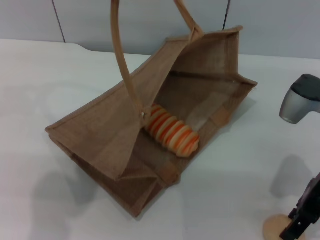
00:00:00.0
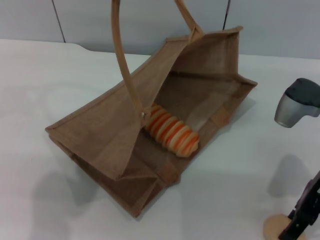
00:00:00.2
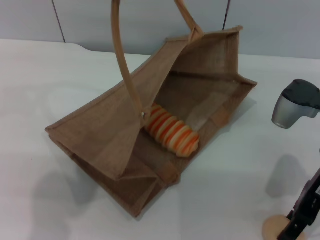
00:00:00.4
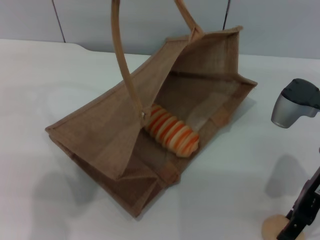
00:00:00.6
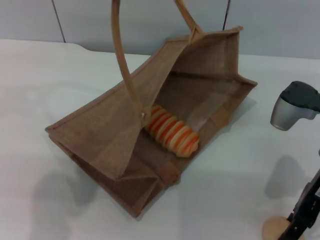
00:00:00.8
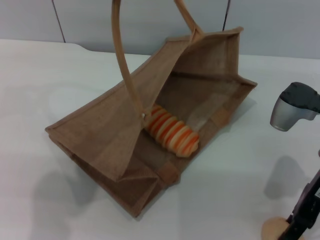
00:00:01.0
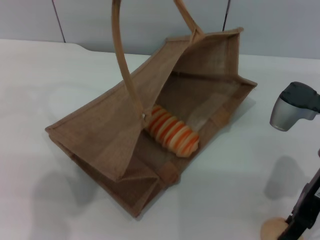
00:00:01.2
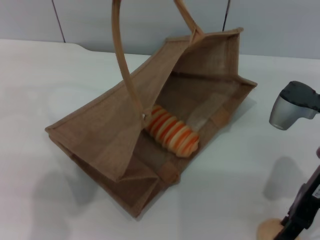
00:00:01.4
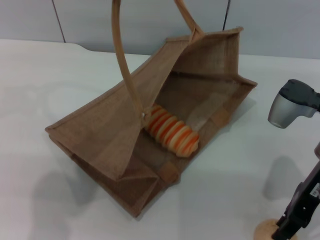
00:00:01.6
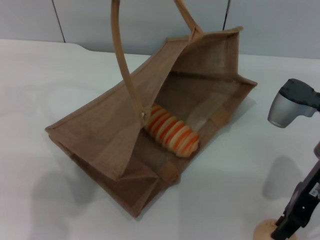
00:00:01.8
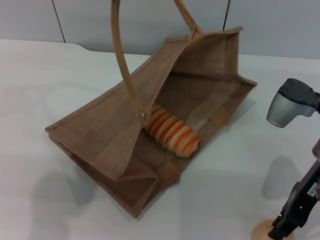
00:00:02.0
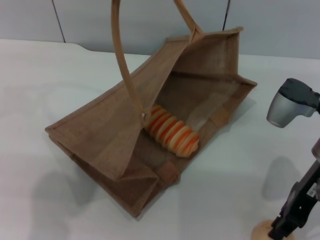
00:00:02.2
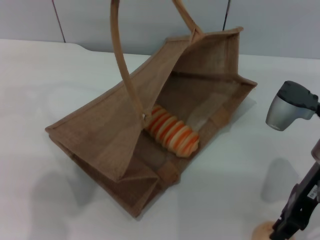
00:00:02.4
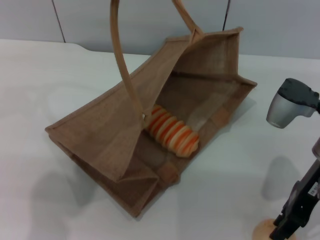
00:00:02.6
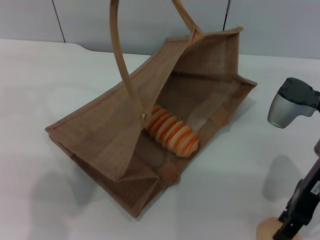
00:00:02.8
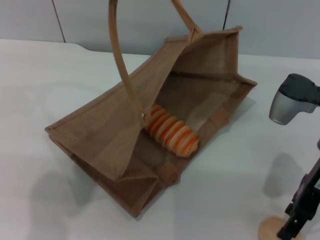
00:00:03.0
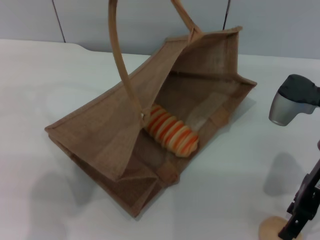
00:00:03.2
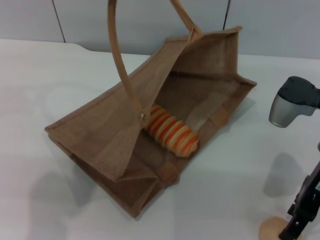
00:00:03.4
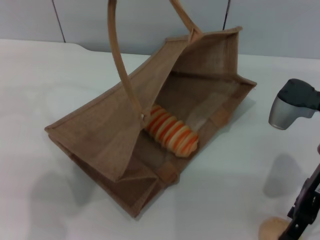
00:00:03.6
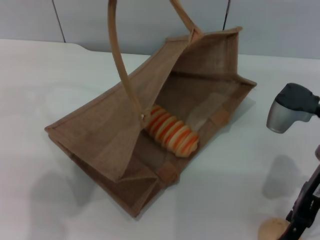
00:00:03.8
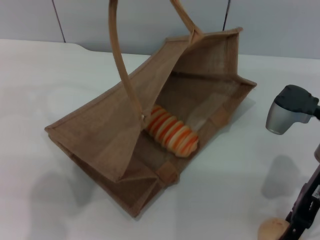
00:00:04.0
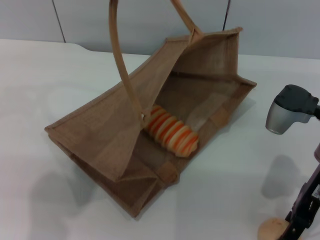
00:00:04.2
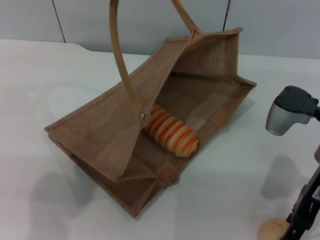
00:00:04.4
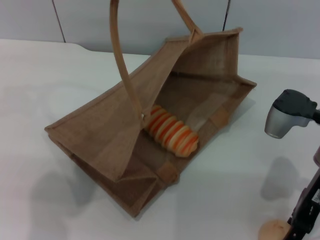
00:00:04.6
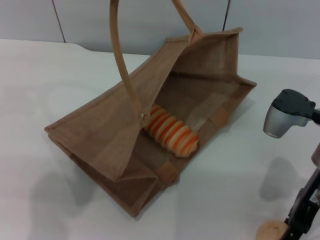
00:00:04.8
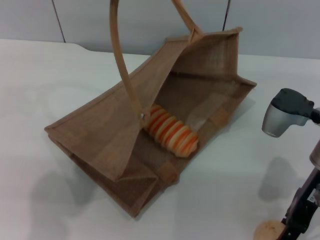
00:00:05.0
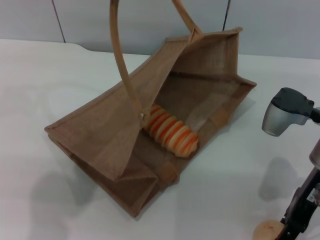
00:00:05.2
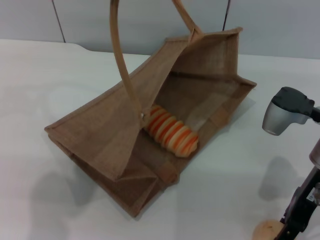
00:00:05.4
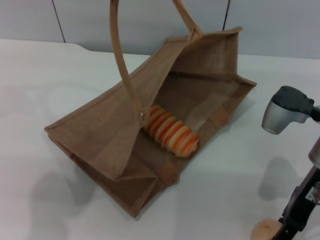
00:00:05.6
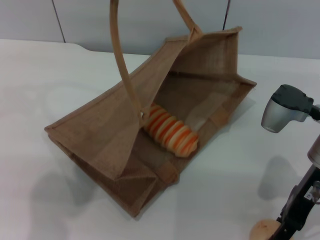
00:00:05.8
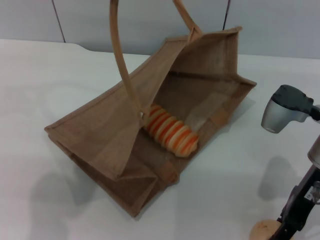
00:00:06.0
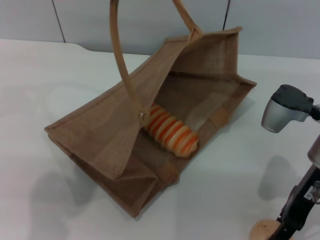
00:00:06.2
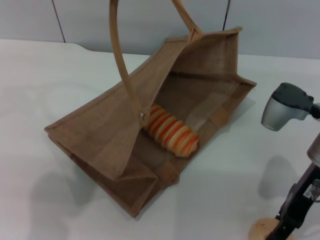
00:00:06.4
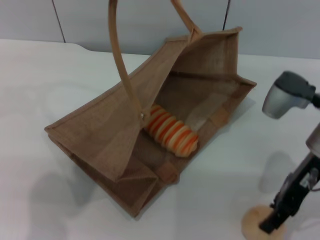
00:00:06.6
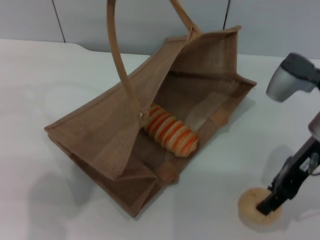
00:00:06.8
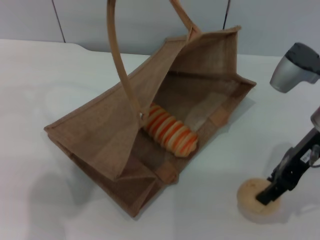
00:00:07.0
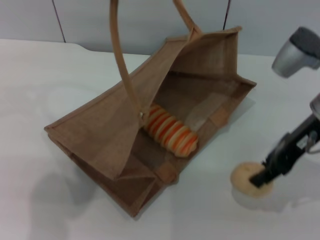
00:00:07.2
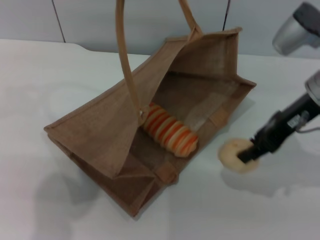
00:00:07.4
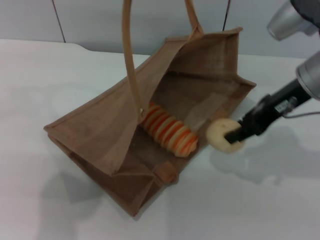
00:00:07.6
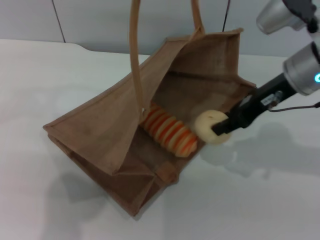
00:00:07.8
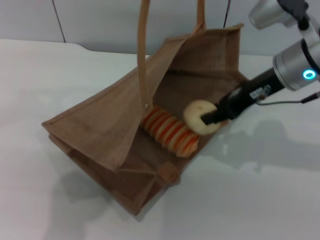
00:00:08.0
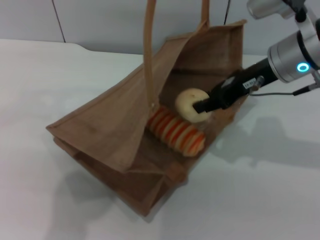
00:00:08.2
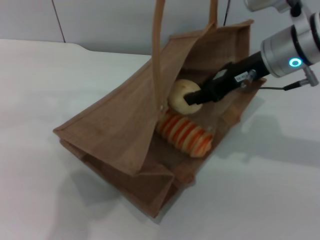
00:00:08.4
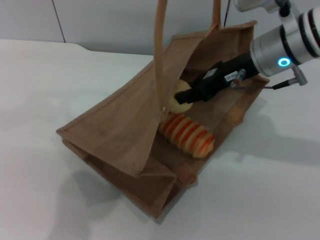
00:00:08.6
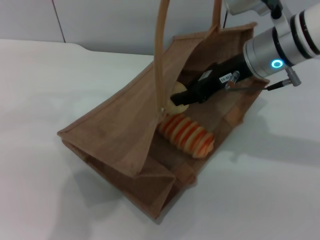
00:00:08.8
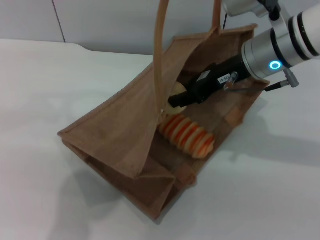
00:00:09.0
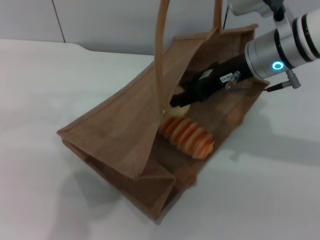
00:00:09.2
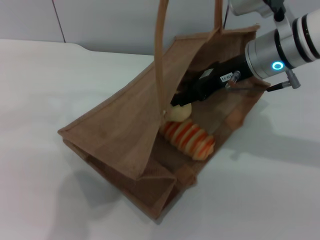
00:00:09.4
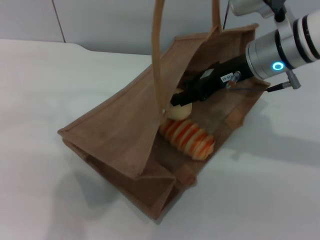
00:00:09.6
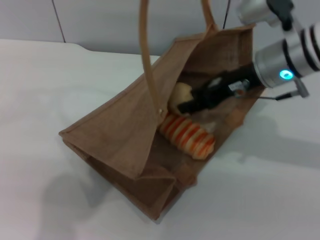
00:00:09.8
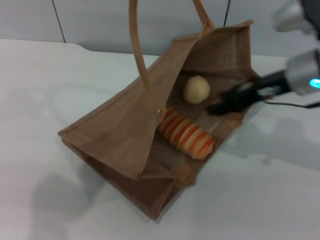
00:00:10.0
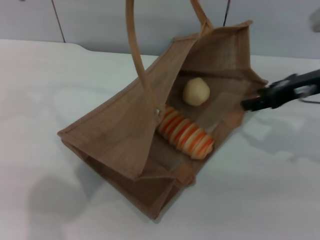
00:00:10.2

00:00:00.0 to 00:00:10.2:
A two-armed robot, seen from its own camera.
Task of the whole recording: pick up the bread and egg yolk pastry from the table and place it in the brown handbag.
Step, 00:00:00.0 to 00:00:06.8: Pick up the egg yolk pastry with the right gripper.
Step, 00:00:07.0 to 00:00:09.8: Place the egg yolk pastry into the woven bag with the right gripper.
00:00:00.0 to 00:00:01.4: Neither gripper changes place.
00:00:01.4 to 00:00:03.0: The right gripper closes and opens again.
00:00:03.0 to 00:00:04.4: The right gripper opens its fingers.
00:00:04.4 to 00:00:05.8: Both grippers stay put.
00:00:05.8 to 00:00:07.2: The right gripper changes place by approximately 5 cm.
00:00:07.2 to 00:00:08.8: The right gripper goes approximately 10 cm to the left and forward, while the left gripper is displaced to the right by roughly 5 cm.
00:00:08.8 to 00:00:10.2: The left gripper is displaced to the left by approximately 5 cm. Meanwhile the right gripper moves to the right, roughly 10 cm, and opens up.

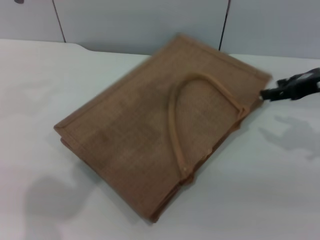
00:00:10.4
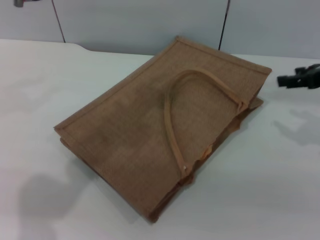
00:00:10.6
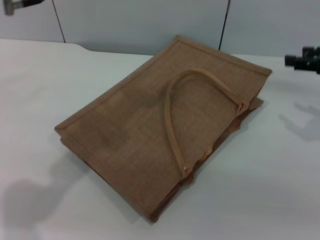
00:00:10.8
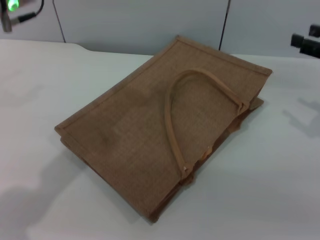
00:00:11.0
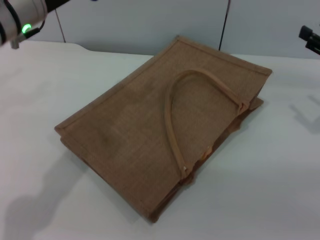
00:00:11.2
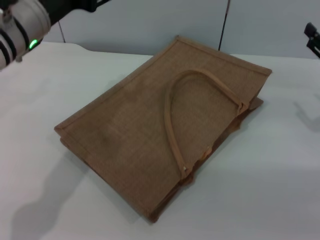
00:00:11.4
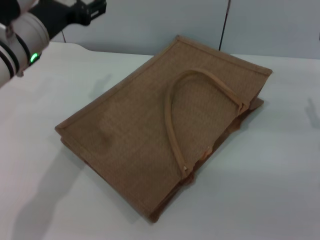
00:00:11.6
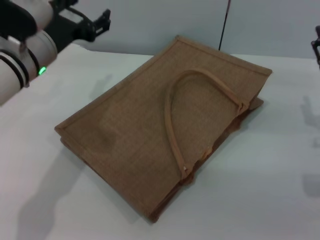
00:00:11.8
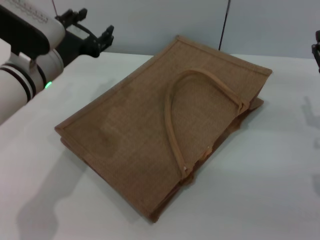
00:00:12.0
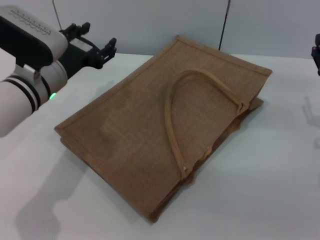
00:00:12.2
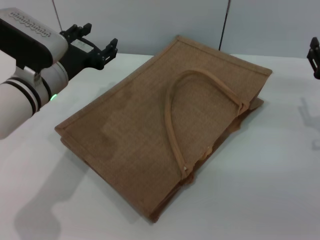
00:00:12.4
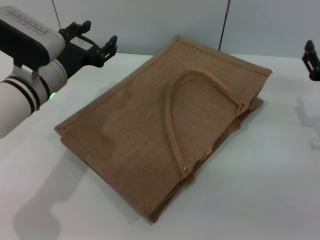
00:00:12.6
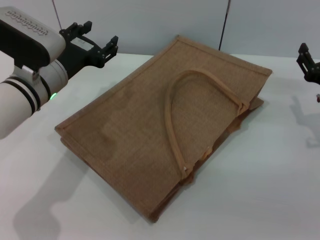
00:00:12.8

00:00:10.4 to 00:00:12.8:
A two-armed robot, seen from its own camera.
Task of the whole recording: pick up the bread and egg yolk pastry from the table and place it in the brown handbag.
Step, 00:00:10.4 to 00:00:11.0: Lower the woven bag with the left gripper to close it.
00:00:10.4 to 00:00:11.6: The left gripper is displaced downward by about 15 cm, and opens. The right gripper shifts about 10 cm downward and backward.
00:00:11.6 to 00:00:12.8: The left gripper heads downward, covering approximately 5 cm.
